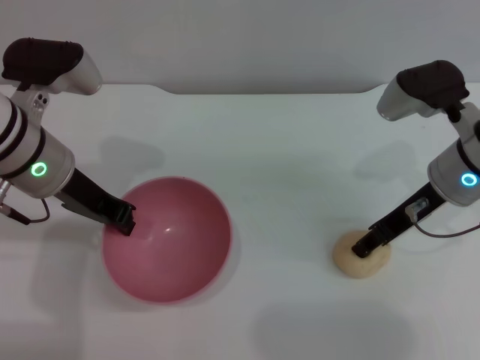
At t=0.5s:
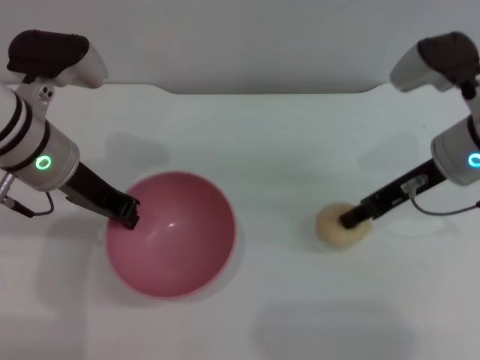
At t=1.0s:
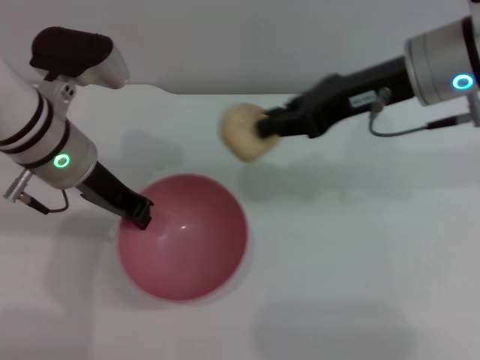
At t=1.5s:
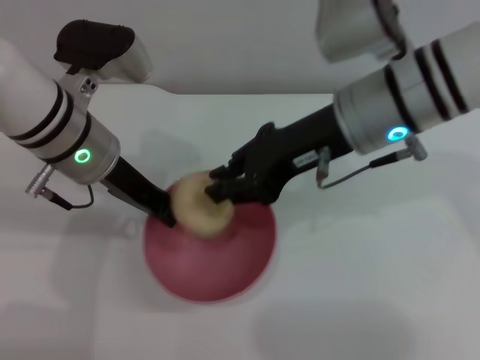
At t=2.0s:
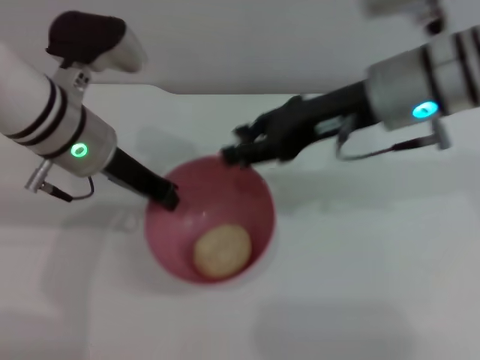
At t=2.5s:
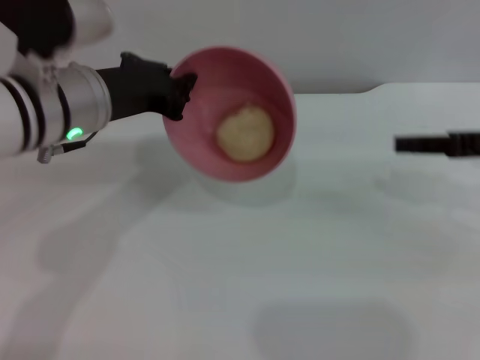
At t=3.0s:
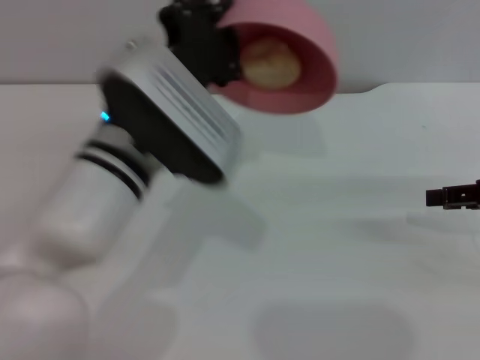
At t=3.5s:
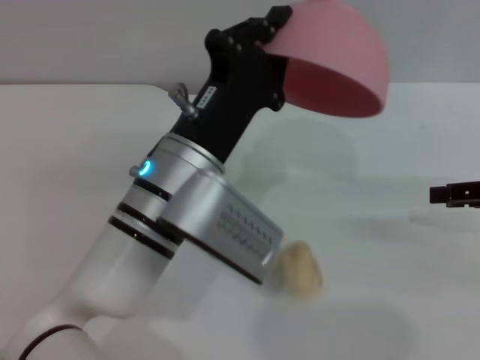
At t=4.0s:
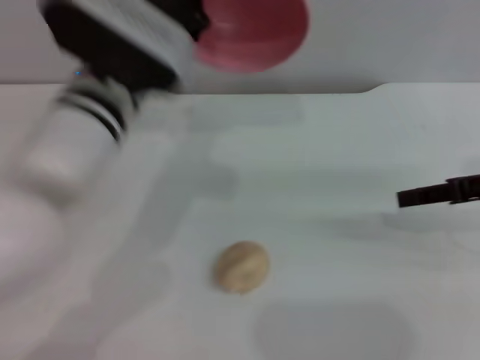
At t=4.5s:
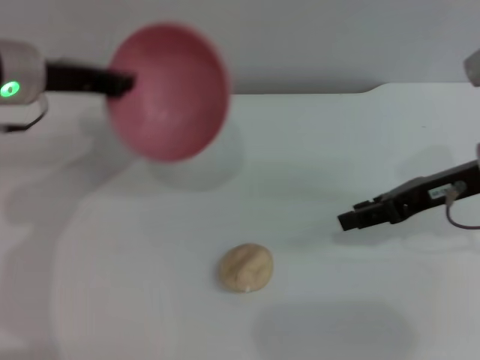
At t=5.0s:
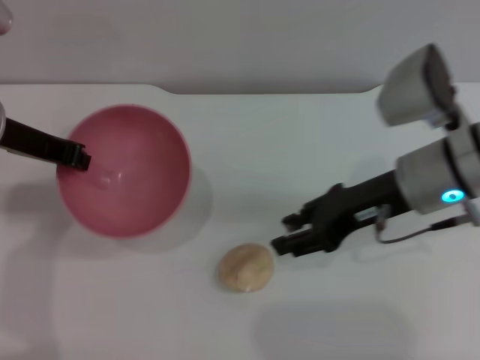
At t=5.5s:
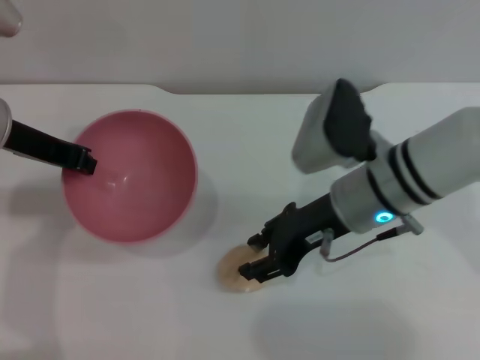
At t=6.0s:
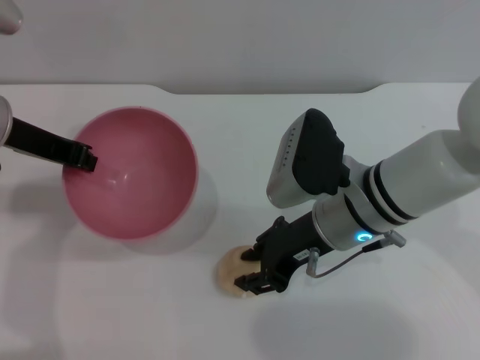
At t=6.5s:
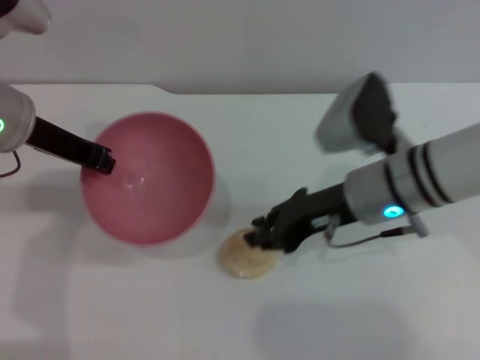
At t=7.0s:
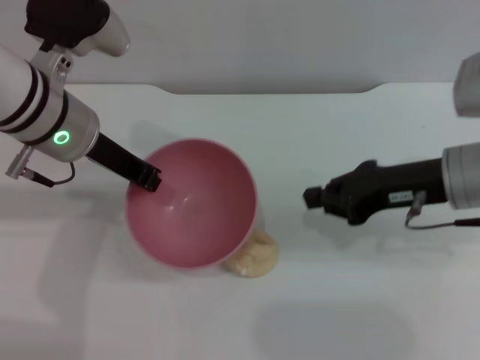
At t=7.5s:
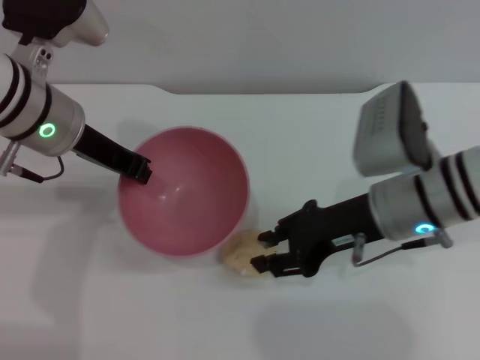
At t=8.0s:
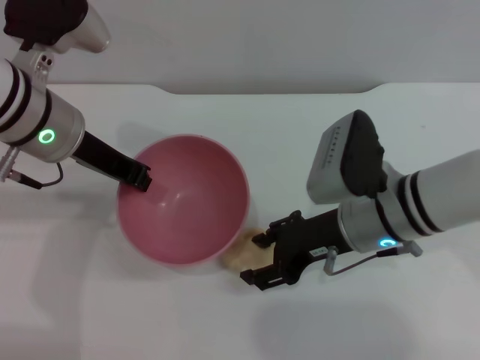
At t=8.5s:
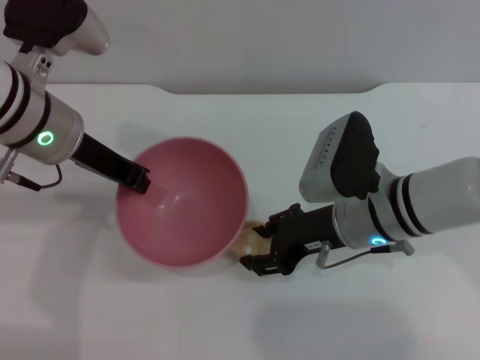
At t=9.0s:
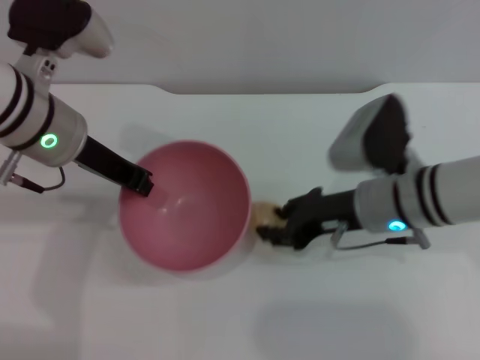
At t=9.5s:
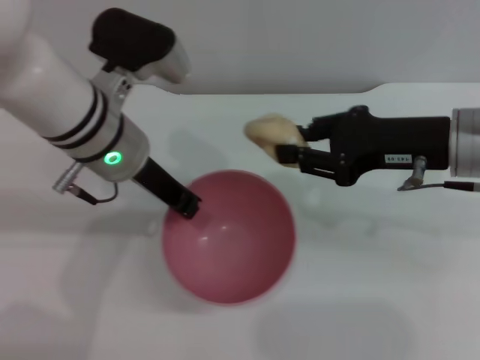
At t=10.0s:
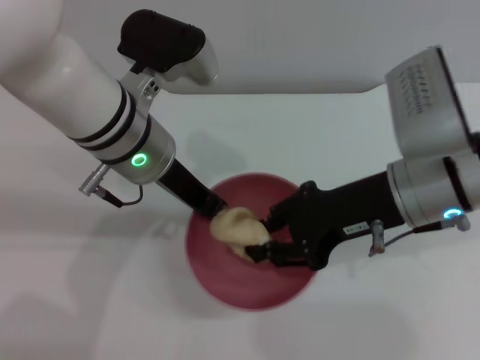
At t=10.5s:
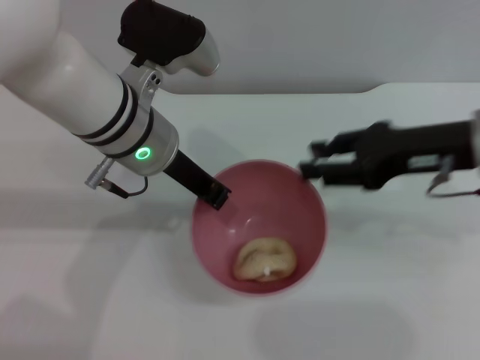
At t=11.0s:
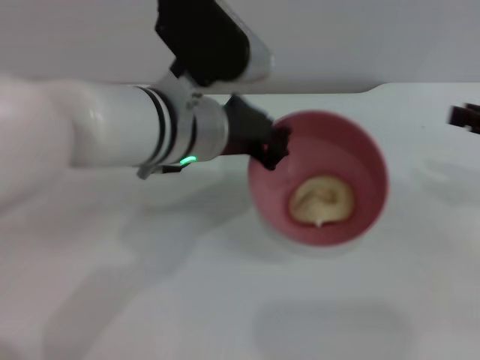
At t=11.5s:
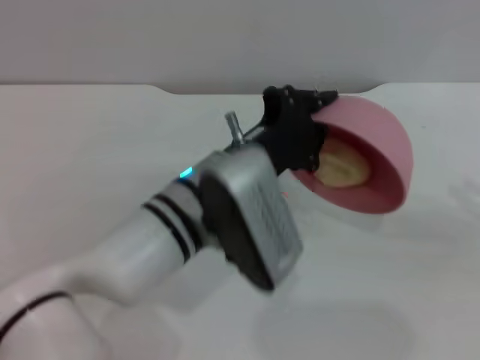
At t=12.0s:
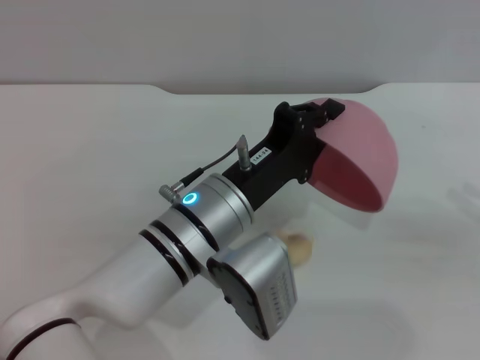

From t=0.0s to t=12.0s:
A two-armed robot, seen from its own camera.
Task of the whole recording: put the egg yolk pastry into the pink bowl and pour it out repeatedly.
Step, from t=1.0s to t=1.5s: Place the egg yolk pastry into the bowl.
Step, from t=2.0s to t=3.0s: Pour the egg yolk pastry out of bowl.
Step, from t=3.5s to t=9.0s: Pick up the egg yolk pastry with the right gripper.
Step, from t=9.5s to t=10.0s: Place the egg yolk pastry into the bowl.
Step, from t=10.5s to t=12.0s: Pour the egg yolk pastry out of bowl.
From t=0.0s to t=2.0s: The right gripper shifts approximately 10 cm upward and to the left, and closes and opens again.
From t=2.0s to t=4.0s: The right gripper goes about 15 cm to the right. Meanwhile the left gripper is displaced to the right by approximately 5 cm.
From t=4.0s to t=6.0s: The right gripper goes approximately 20 cm to the left, while the left gripper shifts about 15 cm to the left.
From t=6.0s to t=8.0s: The left gripper goes approximately 5 cm to the right, while the right gripper moves about 10 cm to the right and comes back, and closes, then opens again.
From t=8.0s to t=10.0s: The right gripper shifts roughly 5 cm upward, and closes up. The left gripper shifts approximately 10 cm to the right.
From t=10.0s to t=12.0s: The right gripper shifts approximately 25 cm to the right, and opens up. The left gripper travels backward, downward and to the right by some 15 cm.

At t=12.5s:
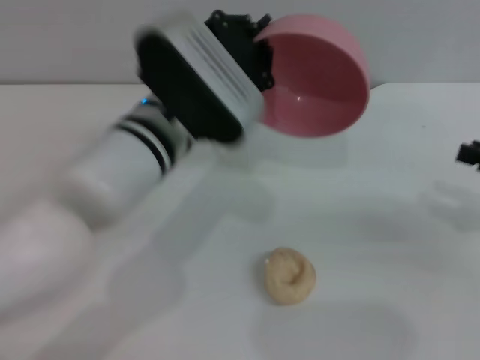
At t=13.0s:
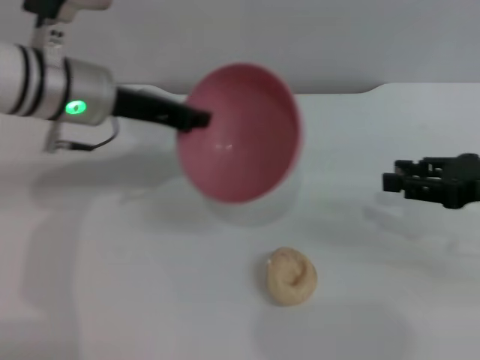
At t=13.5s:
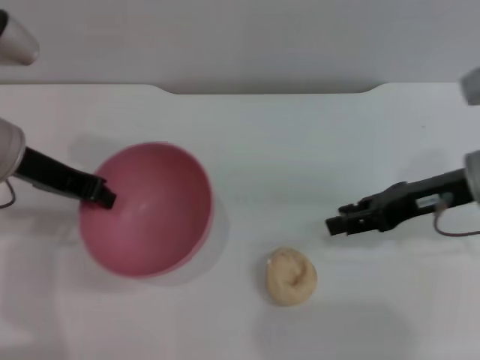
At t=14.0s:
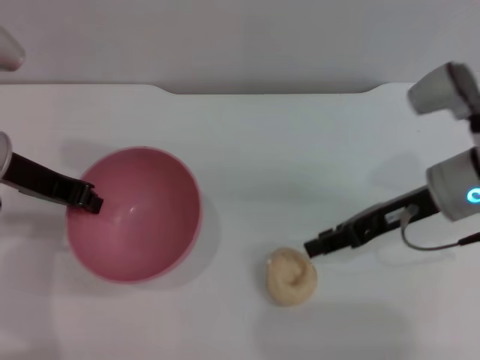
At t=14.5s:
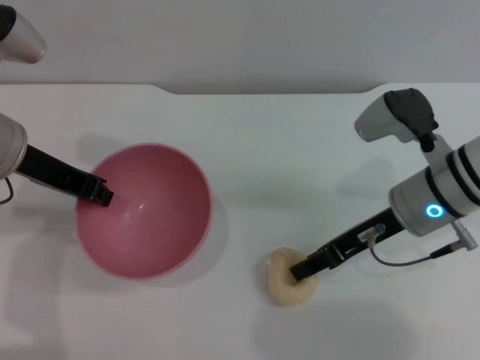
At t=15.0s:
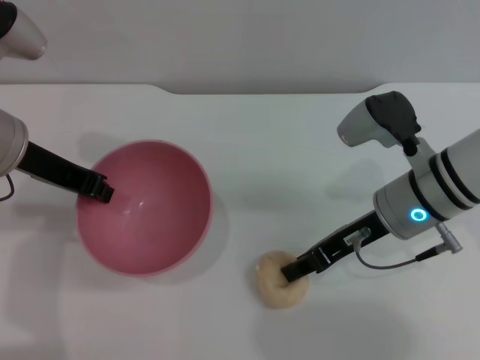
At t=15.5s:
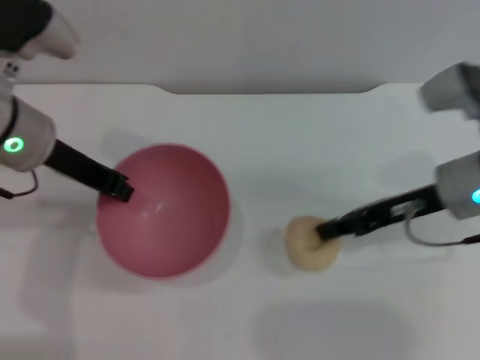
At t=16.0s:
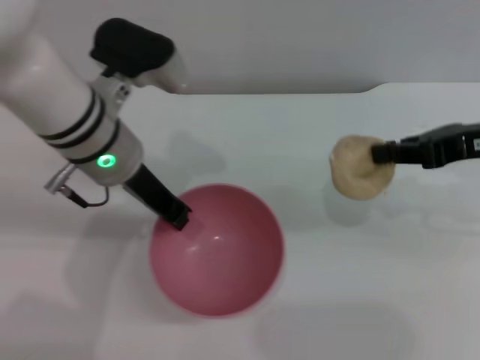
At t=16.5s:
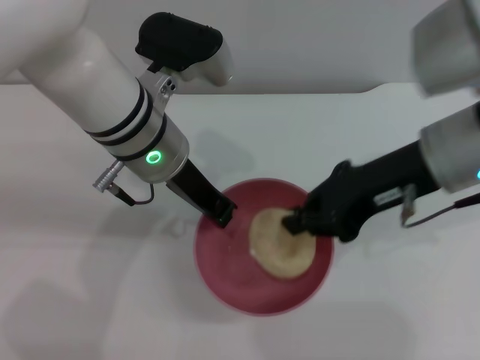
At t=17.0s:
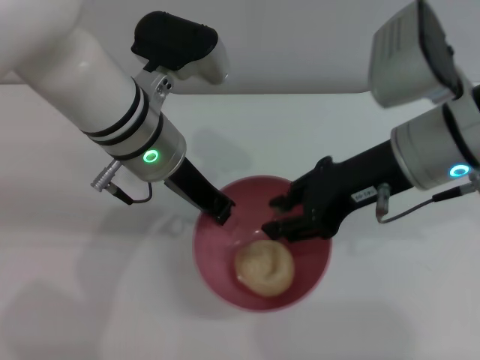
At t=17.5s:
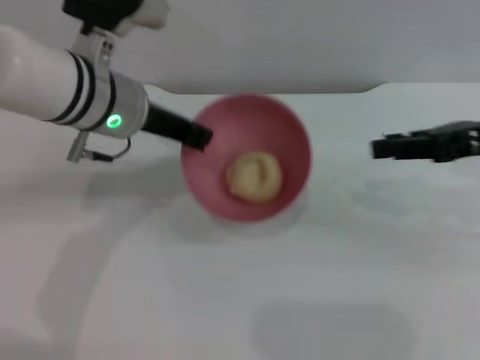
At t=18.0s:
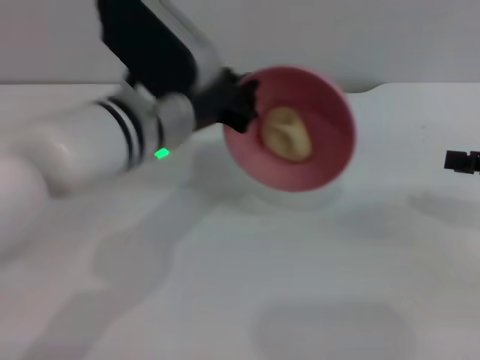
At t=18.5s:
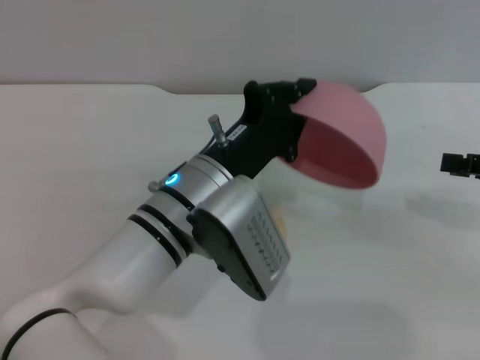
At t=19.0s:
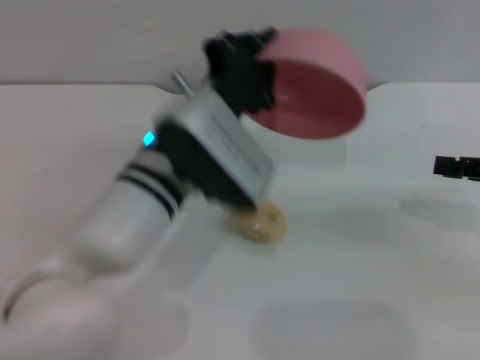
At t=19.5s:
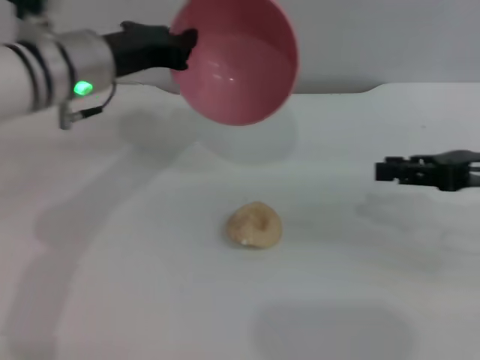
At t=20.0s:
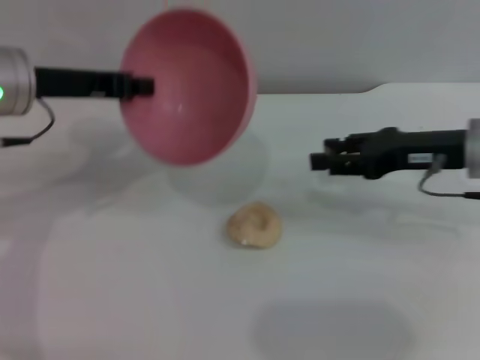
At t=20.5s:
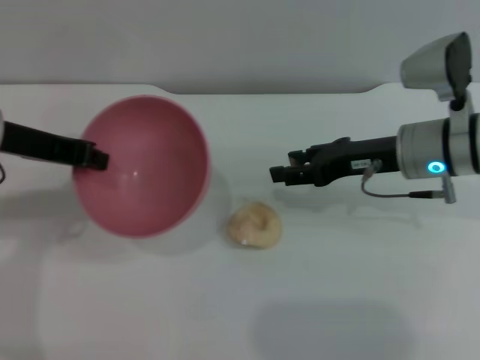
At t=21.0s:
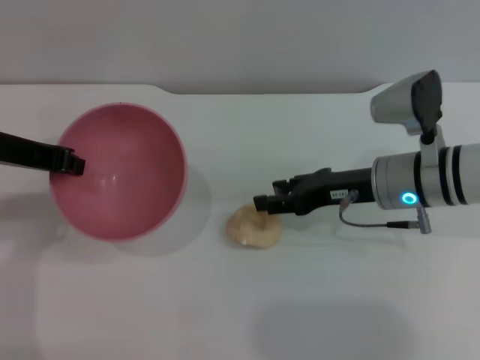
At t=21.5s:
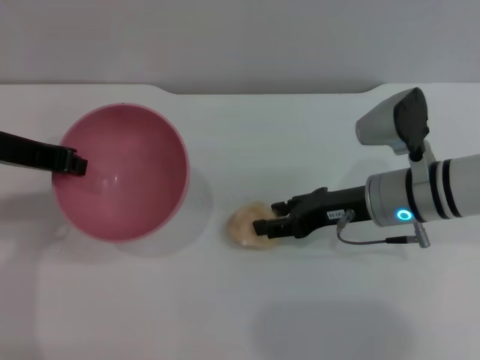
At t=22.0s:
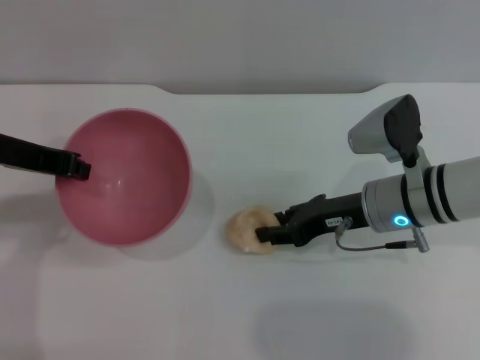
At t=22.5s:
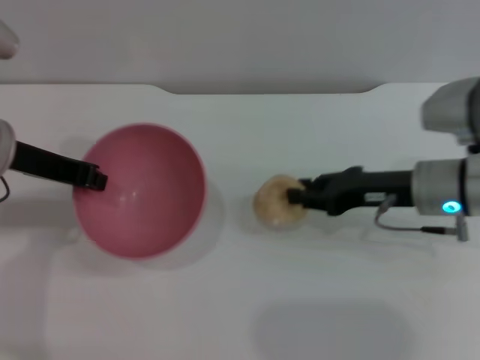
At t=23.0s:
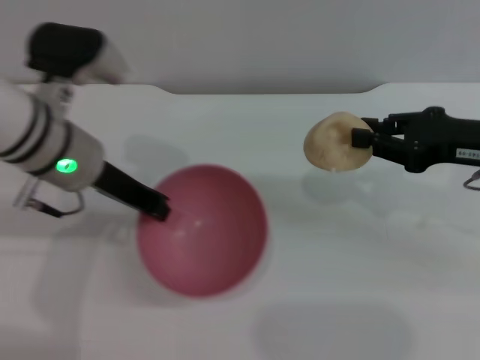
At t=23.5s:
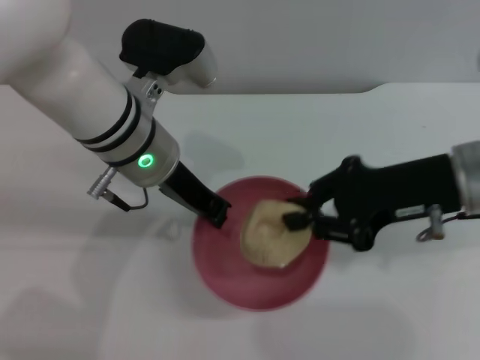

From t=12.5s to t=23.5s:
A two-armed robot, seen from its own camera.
Task of the whole recording: put the egg yolk pastry into the pink bowl and pour it out repeatedly.
Step, from t=12.5s to t=15.5s: Pick up the egg yolk pastry with the right gripper.
Step, from t=16.0s to t=17.0s: Place the egg yolk pastry into the bowl.
Step, from t=17.5s to t=18.5s: Pour the egg yolk pastry out of bowl.
Step, from t=19.0s to t=22.5s: Pick up the egg yolk pastry with the right gripper.
From t=12.5s to t=14.5s: The right gripper heads to the left and forward, covering about 20 cm. Meanwhile the left gripper shifts some 15 cm to the left.
From t=14.5s to t=16.0s: The left gripper is displaced to the right by about 10 cm. The right gripper shifts some 15 cm upward and to the right, and closes up.
From t=16.0s to t=18.0s: The right gripper heads to the right, covering about 10 cm, and opens its fingers, while the left gripper swings left and right, some 5 cm each way, with 2 reversals.
From t=18.0s to t=20.0s: The right gripper goes some 15 cm to the left and forward, while the left gripper goes about 15 cm to the left.
From t=20.0s to t=21.5s: The right gripper travels to the left and downward by about 10 cm.
From t=21.5s to t=23.5s: The right gripper shifts about 10 cm upward, reaches roughly 10 cm to the right, then returns, and closes. Meanwhile the left gripper is displaced to the right by roughly 15 cm.

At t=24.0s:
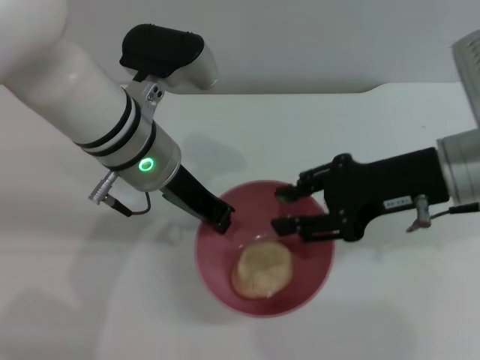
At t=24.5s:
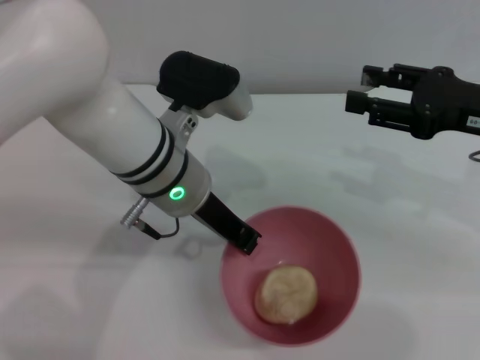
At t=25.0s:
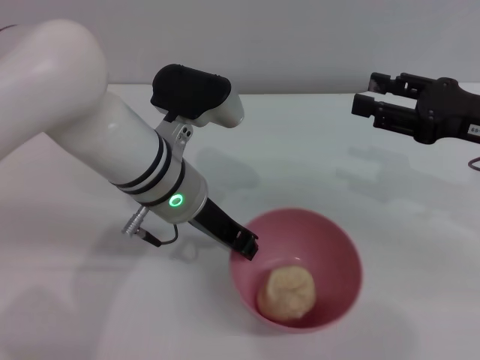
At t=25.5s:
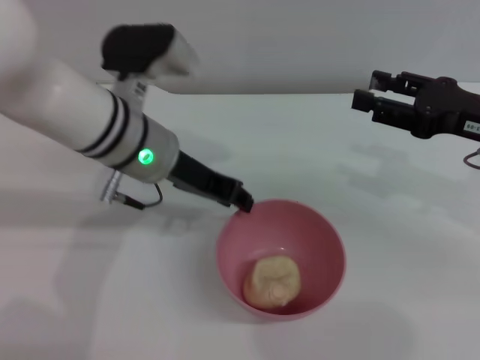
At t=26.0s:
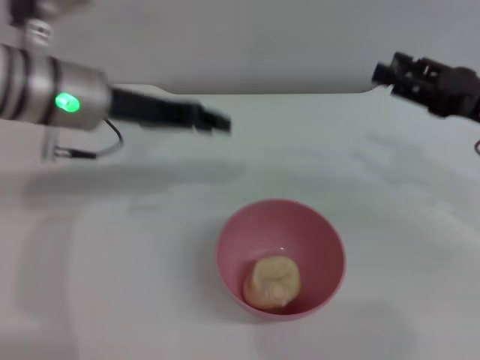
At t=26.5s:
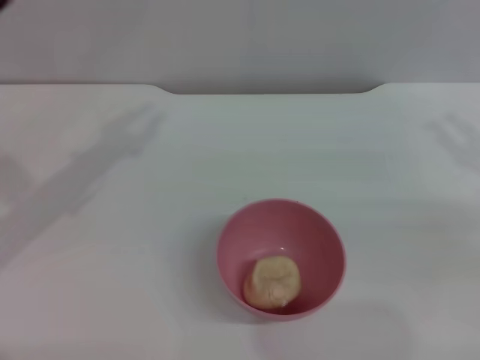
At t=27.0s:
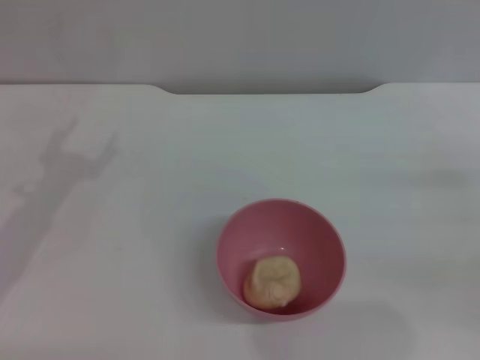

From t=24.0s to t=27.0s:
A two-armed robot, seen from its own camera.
Task of the whole recording: put the egg yolk pastry into the pink bowl and pour it out repeatedly.
Step, from t=24.5s to t=25.5s: Place the bowl on the table.
From t=24.0s to t=25.5s: The right gripper goes approximately 10 cm to the right, and opens its fingers; the left gripper opens up.
From t=25.5s to t=27.0s: The left gripper goes about 20 cm to the left and backward, and opens up; the right gripper goes about 15 cm to the right, downward and backward.
